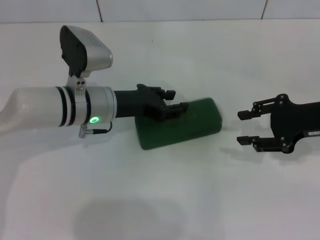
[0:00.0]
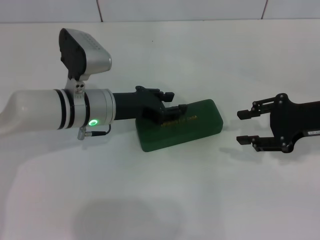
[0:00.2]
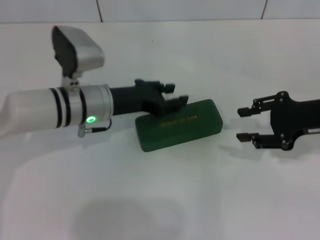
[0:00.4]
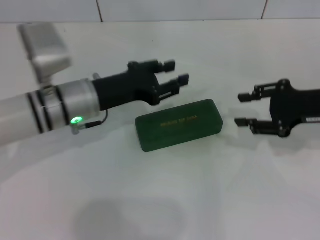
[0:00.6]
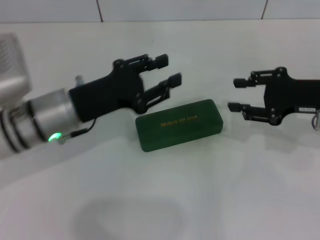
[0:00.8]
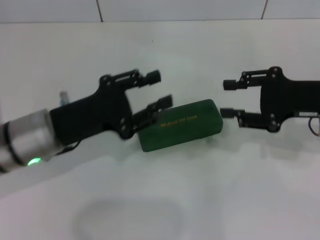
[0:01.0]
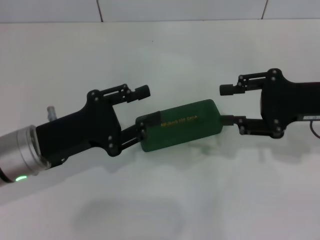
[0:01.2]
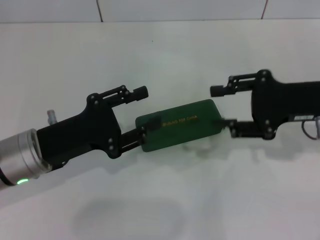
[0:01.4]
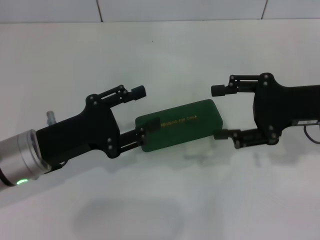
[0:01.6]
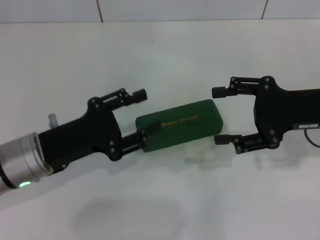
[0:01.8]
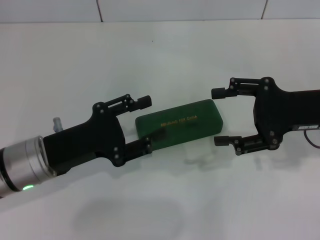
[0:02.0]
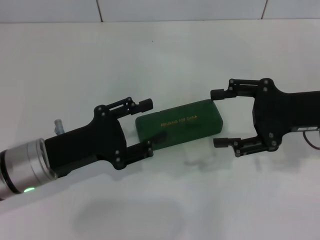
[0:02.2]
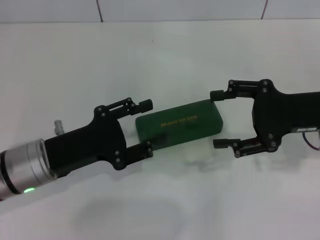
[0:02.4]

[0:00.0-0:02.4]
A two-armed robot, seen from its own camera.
0:00.0 to 0:01.2: The left gripper moves backward and to the left, roughly 15 cm.
0:01.2 to 0:02.4: The right gripper opens up.

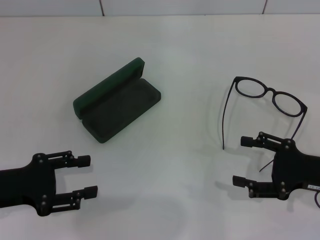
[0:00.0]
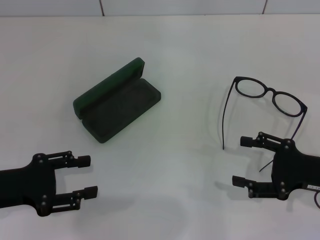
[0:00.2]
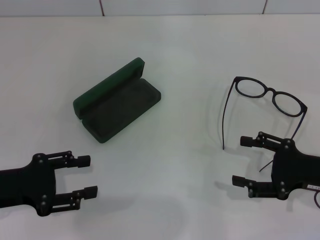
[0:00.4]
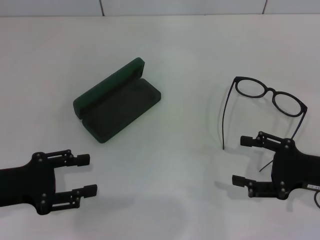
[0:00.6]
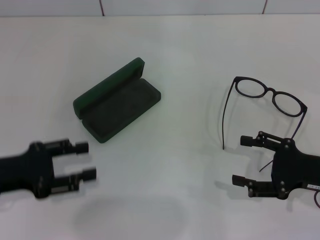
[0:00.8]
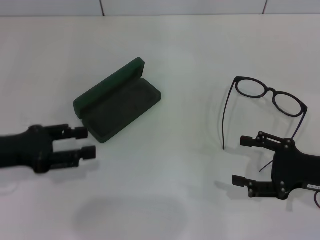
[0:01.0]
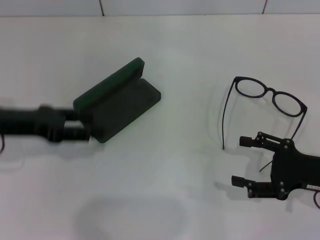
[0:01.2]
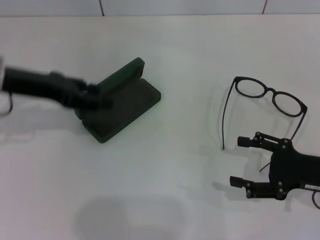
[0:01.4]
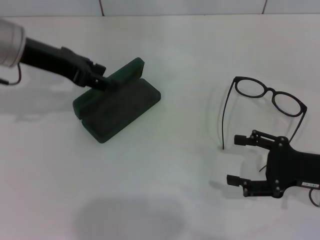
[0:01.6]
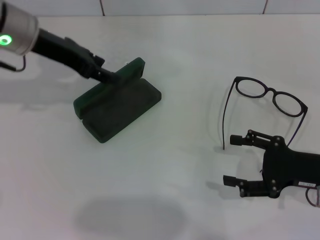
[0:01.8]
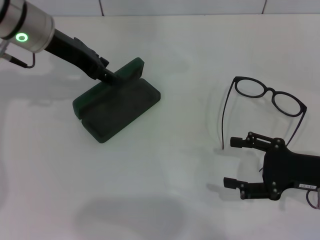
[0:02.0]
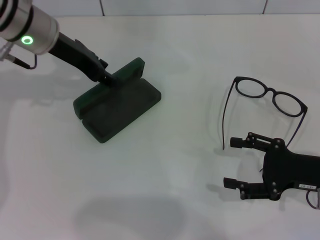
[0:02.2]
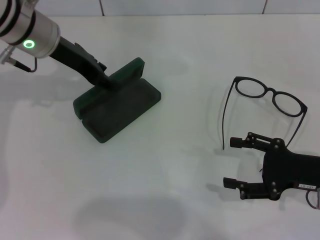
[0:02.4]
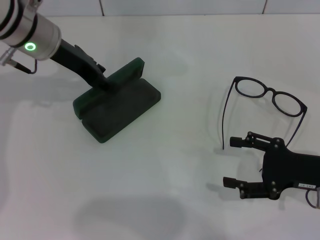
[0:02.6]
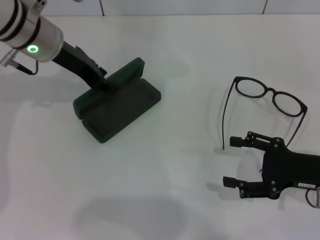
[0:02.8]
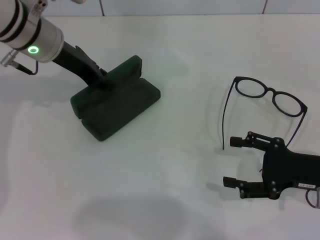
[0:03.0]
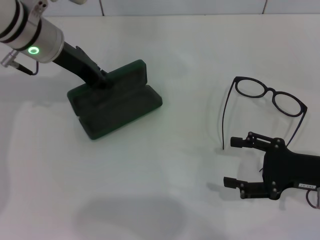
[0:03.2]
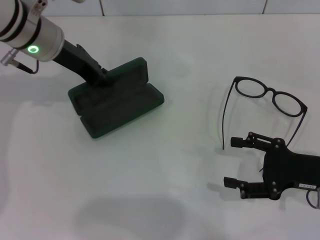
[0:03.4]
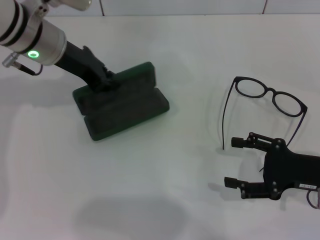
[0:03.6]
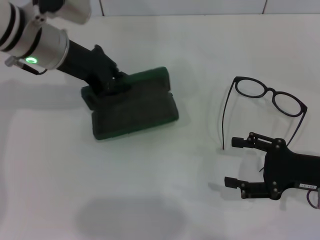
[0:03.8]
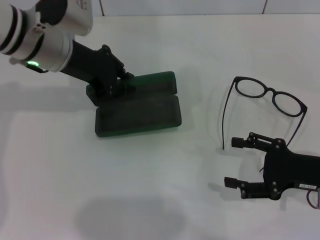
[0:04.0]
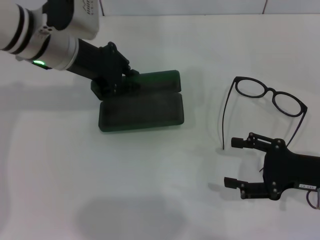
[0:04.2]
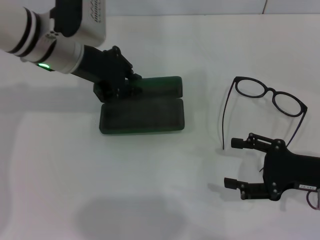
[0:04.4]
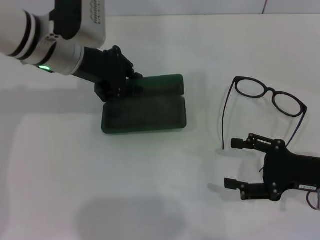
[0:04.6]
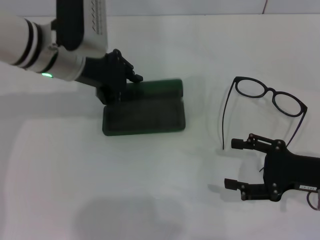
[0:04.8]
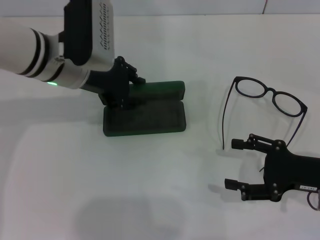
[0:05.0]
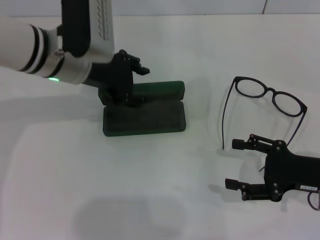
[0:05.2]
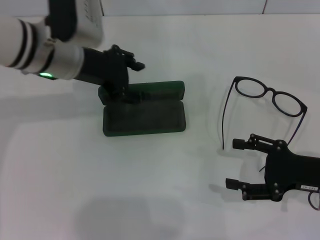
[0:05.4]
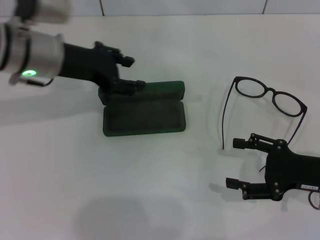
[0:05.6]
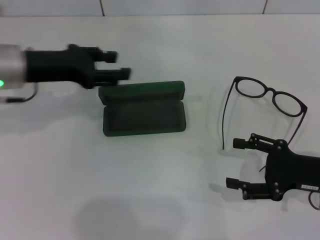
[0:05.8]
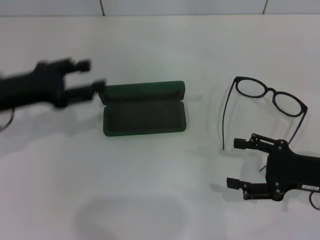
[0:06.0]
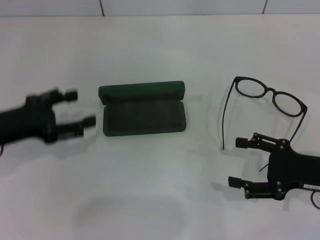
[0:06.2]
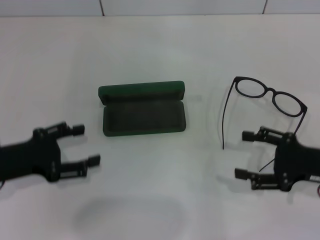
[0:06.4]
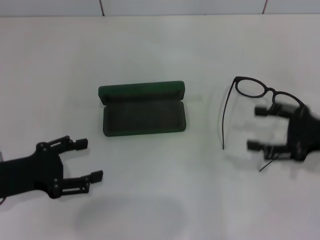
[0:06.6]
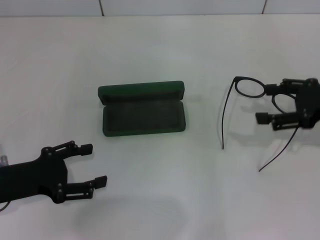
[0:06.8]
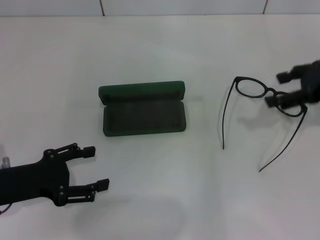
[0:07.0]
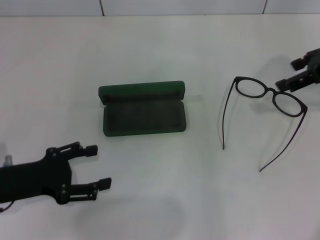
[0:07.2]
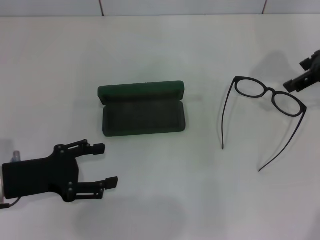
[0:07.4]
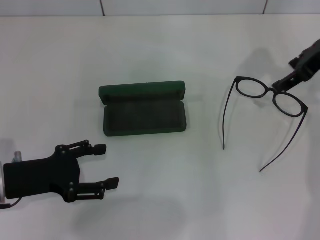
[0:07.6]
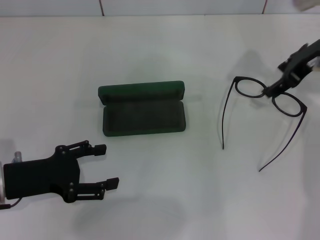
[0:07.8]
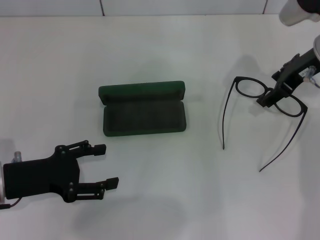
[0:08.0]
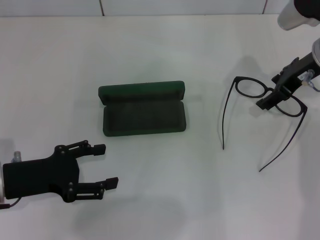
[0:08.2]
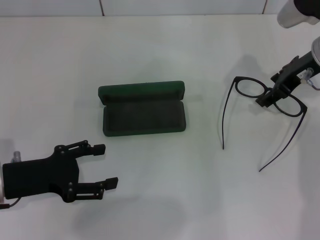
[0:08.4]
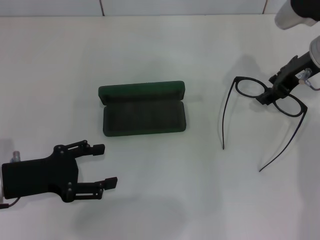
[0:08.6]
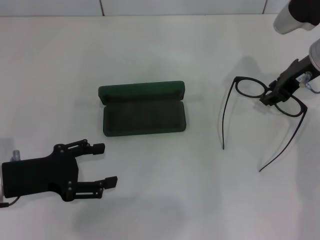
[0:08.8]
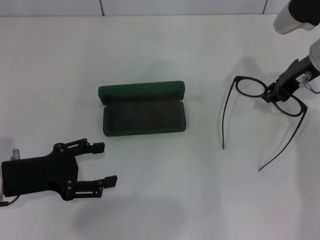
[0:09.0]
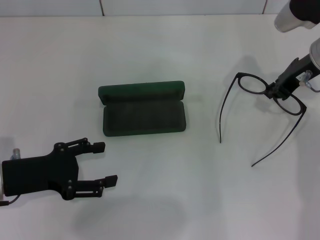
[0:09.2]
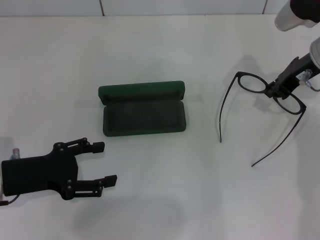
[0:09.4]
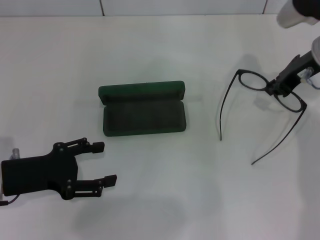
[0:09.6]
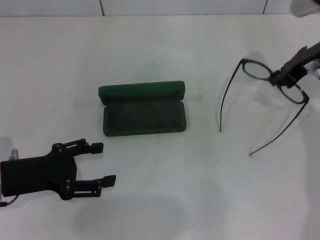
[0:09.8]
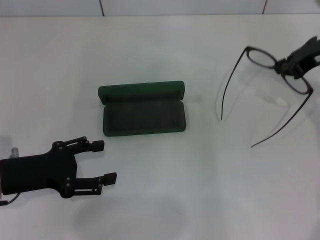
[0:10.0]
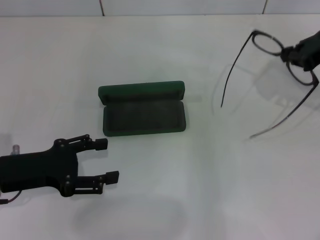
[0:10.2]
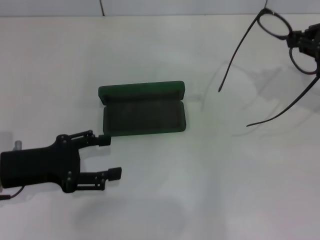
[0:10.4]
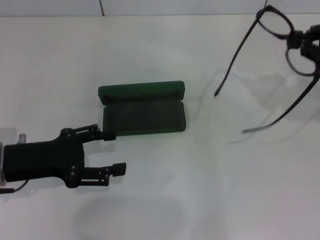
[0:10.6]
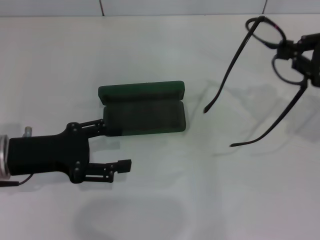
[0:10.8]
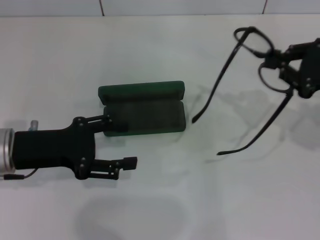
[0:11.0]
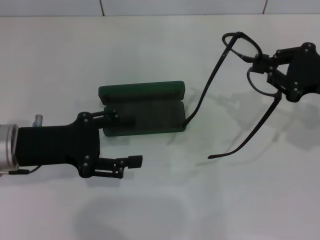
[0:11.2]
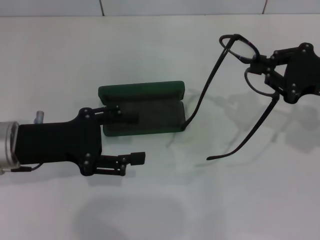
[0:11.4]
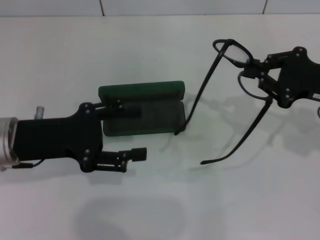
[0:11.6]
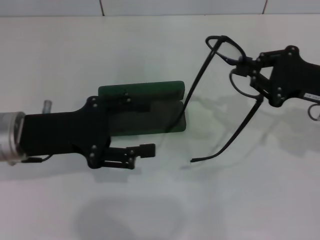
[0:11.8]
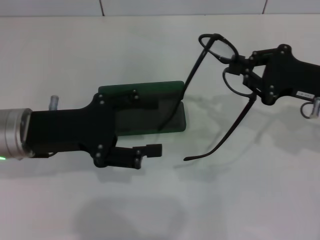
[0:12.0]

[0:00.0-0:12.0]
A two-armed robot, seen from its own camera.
Step, 0:00.0 to 0:03.0: Grab the glasses case with your left hand.
Step, 0:03.2 to 0:04.8: Place the glasses case in the center of the table with your left hand.
Step, 0:05.0 to 0:09.0: Grab the eyeglass frame with your right hand.
0:00.0 to 0:01.6: The left gripper is displaced forward, upward and to the right by about 20 cm.
0:01.6 to 0:03.0: The left gripper shifts by approximately 5 cm.
0:03.0 to 0:04.4: The left gripper closes its fingers.
0:04.4 to 0:06.0: The left gripper moves to the left and backward, approximately 15 cm, and opens its fingers.
0:06.0 to 0:07.6: The left gripper is displaced backward and downward by approximately 10 cm. The right gripper moves forward and upward, some 25 cm.
0:07.6 to 0:09.0: The right gripper moves about 5 cm, and closes up.
0:09.0 to 0:10.4: The right gripper travels to the right by roughly 10 cm, and closes its fingers.
0:10.4 to 0:12.0: The right gripper travels downward by some 10 cm, while the left gripper moves some 5 cm.

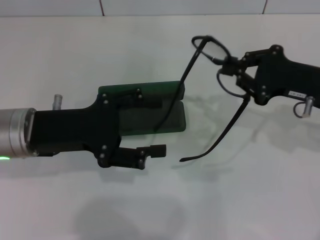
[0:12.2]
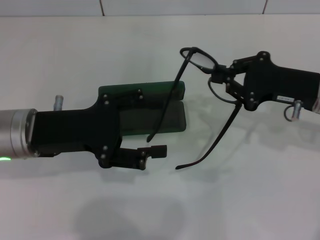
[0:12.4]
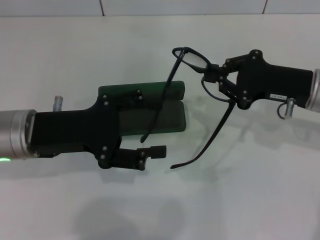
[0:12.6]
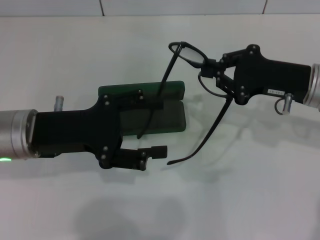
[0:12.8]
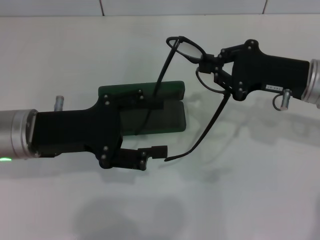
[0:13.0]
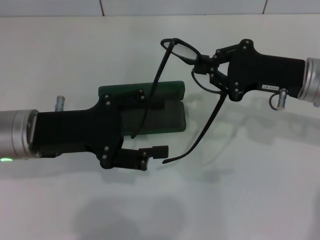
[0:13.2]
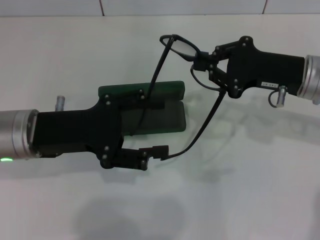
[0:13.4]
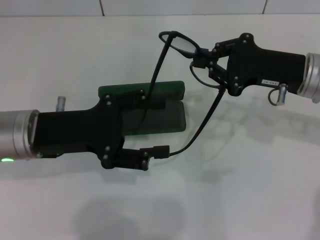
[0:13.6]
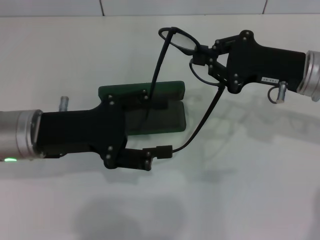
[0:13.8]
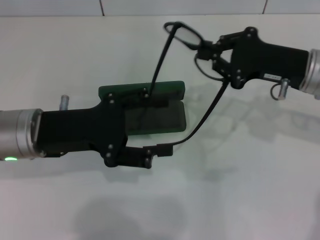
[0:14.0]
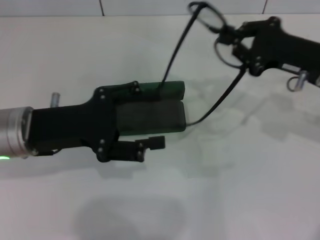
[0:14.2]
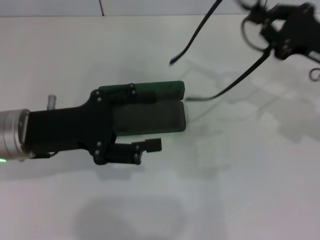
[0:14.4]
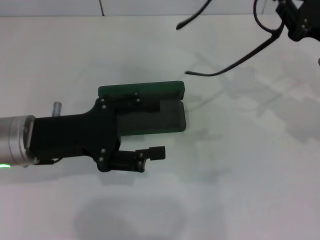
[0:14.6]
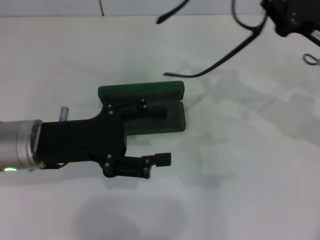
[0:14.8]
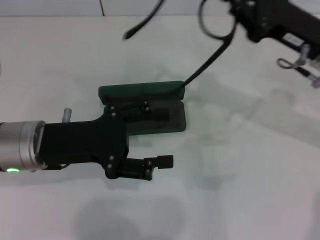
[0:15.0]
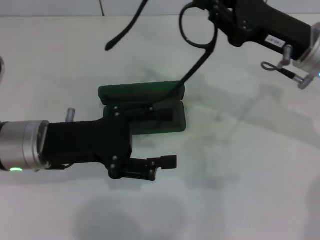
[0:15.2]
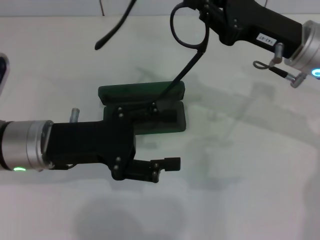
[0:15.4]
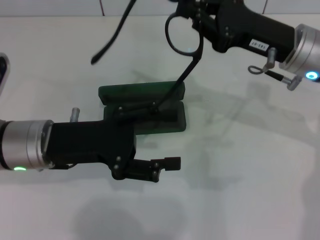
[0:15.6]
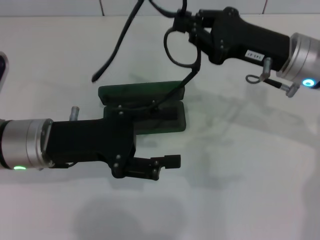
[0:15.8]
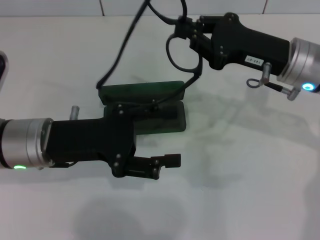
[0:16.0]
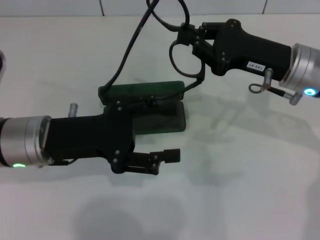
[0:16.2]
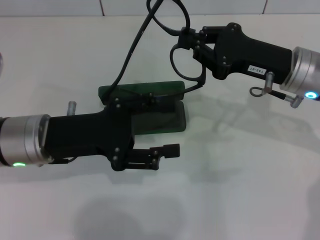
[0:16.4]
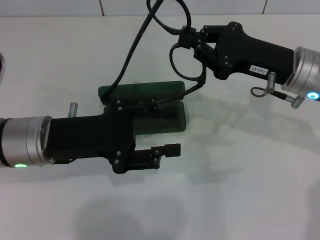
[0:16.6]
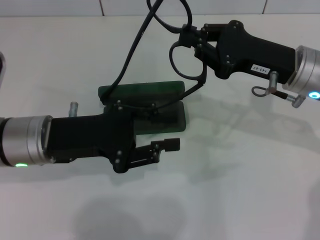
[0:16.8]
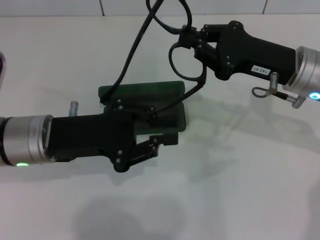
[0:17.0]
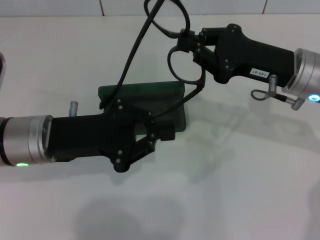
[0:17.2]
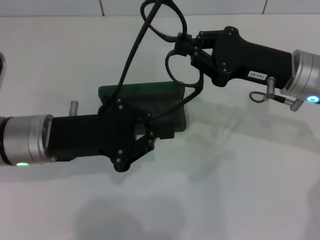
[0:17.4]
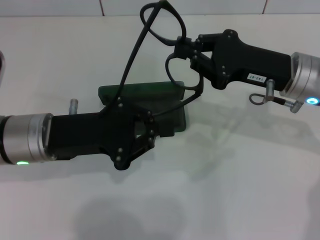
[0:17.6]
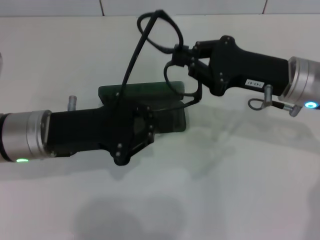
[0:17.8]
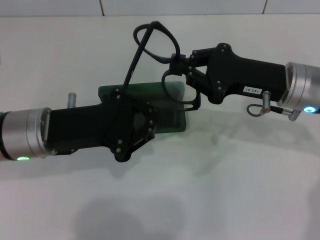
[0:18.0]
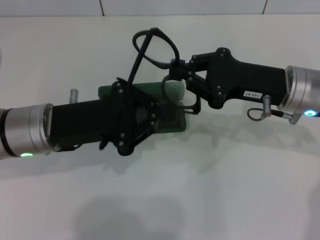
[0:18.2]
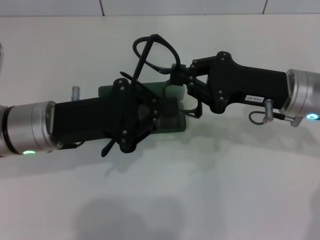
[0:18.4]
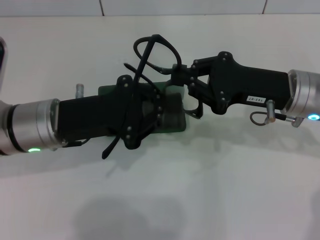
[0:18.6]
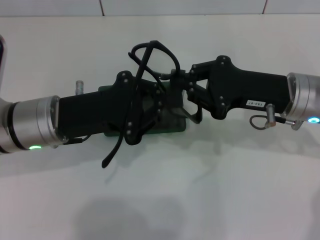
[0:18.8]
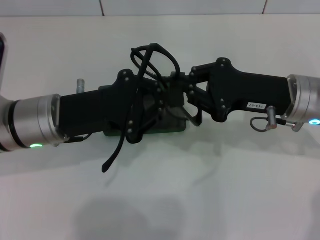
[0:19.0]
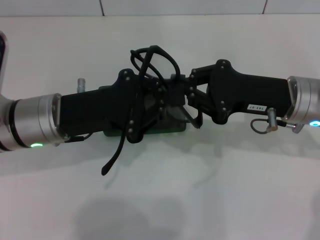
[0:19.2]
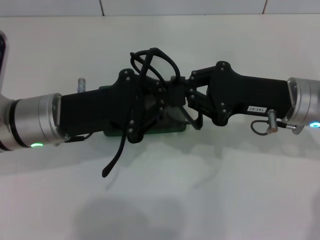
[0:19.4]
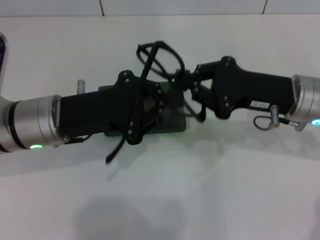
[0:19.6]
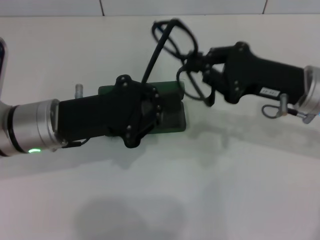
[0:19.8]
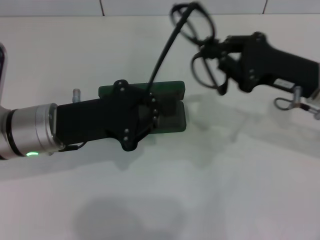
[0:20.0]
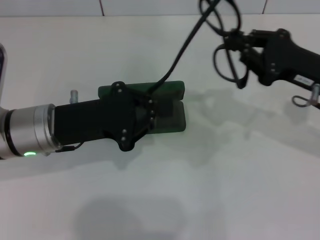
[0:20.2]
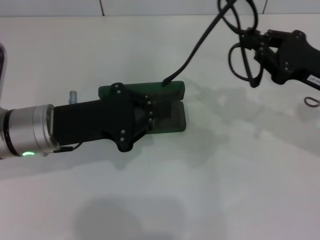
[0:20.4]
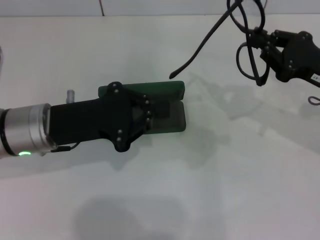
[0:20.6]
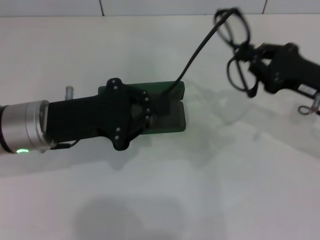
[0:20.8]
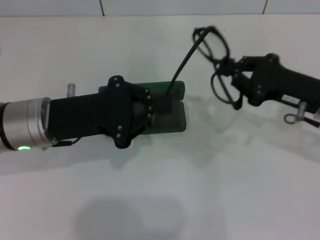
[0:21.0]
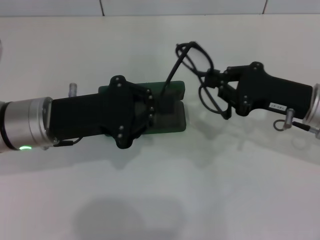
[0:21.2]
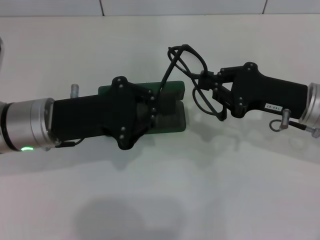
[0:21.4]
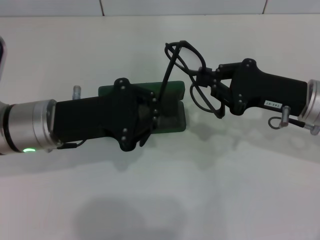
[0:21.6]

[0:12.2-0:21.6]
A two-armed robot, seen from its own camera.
0:12.2 to 0:13.8: The grippers stay close to where they were, moving slightly.
0:13.8 to 0:15.4: The right gripper moves approximately 5 cm to the right and comes back.
0:15.4 to 0:17.0: The left gripper closes.
0:17.0 to 0:18.4: The left gripper closes up.
0:18.4 to 0:20.0: The grippers move only a little.
0:20.0 to 0:21.6: The grippers make only small movements.
